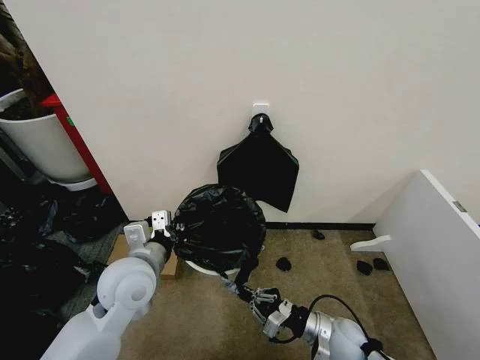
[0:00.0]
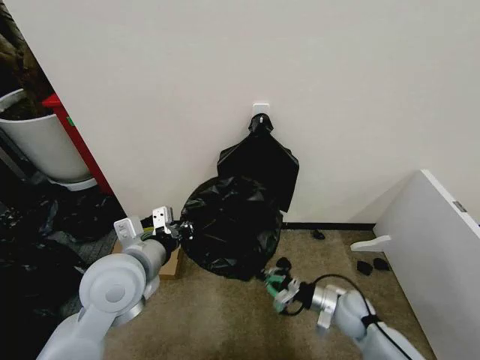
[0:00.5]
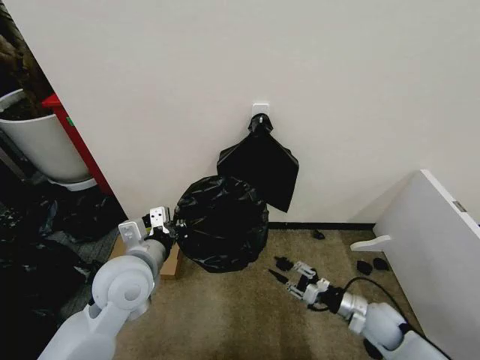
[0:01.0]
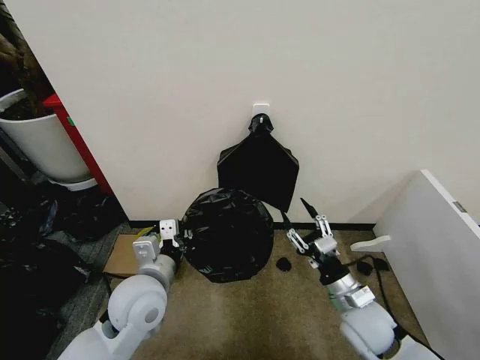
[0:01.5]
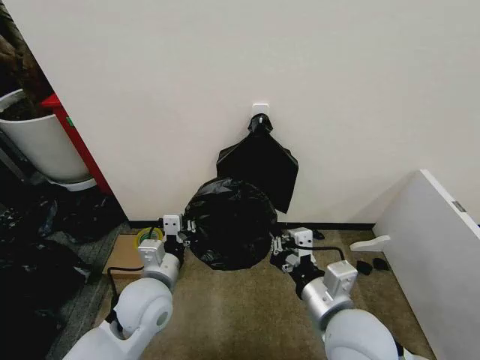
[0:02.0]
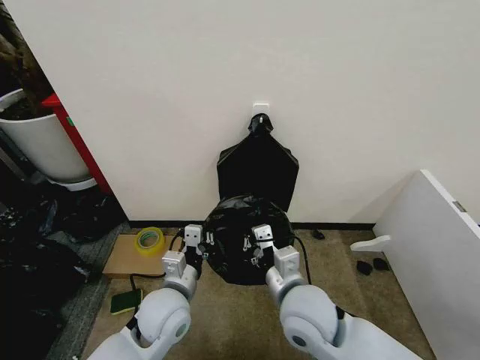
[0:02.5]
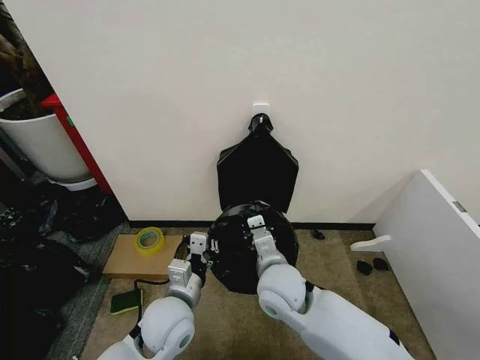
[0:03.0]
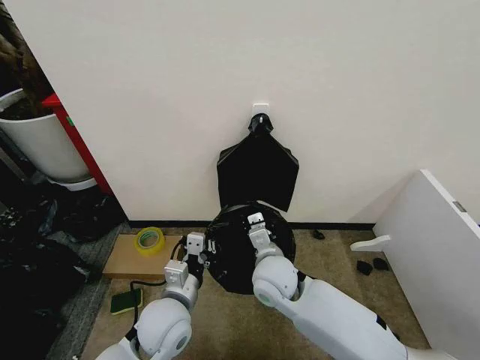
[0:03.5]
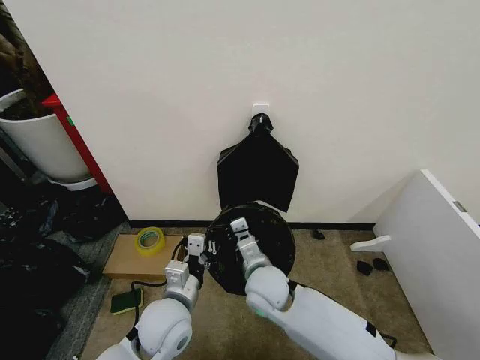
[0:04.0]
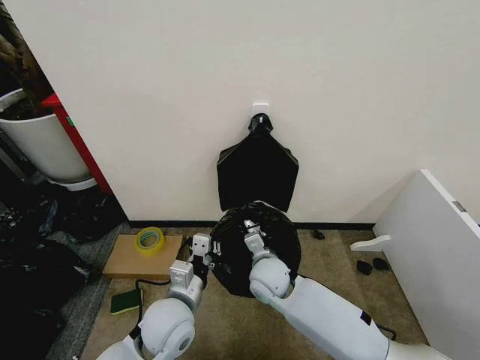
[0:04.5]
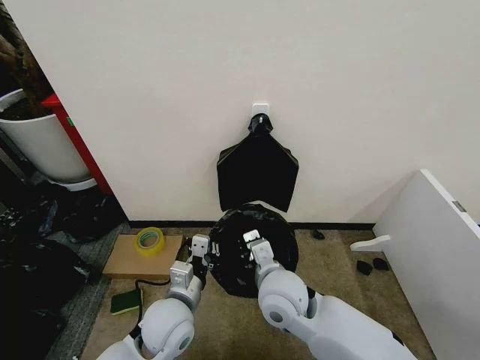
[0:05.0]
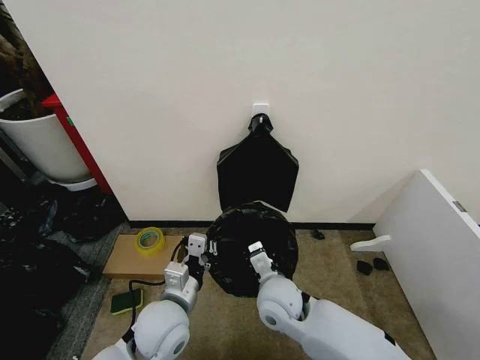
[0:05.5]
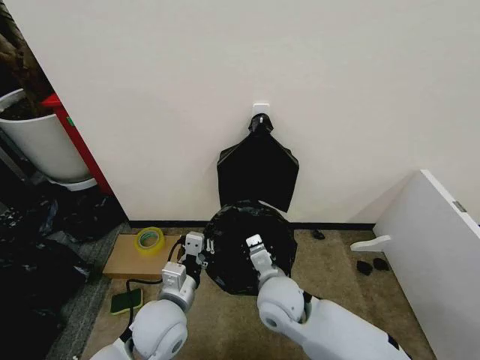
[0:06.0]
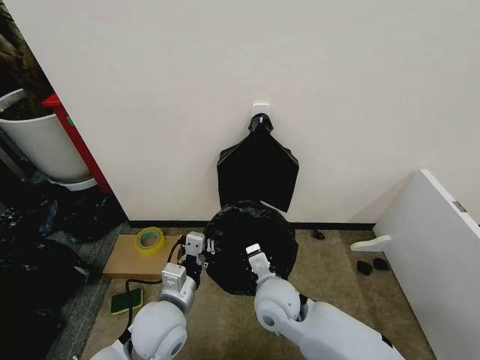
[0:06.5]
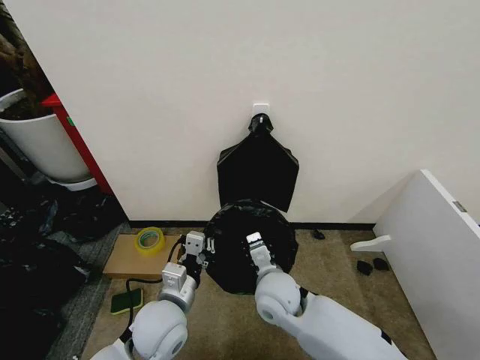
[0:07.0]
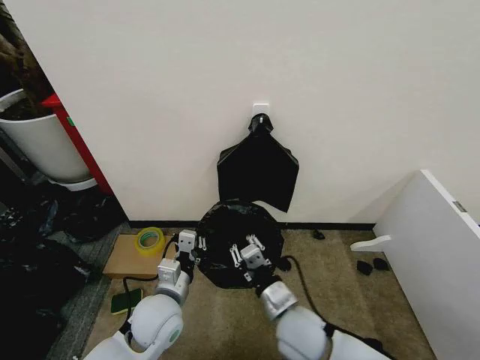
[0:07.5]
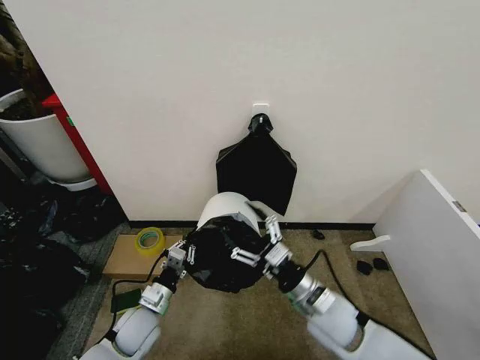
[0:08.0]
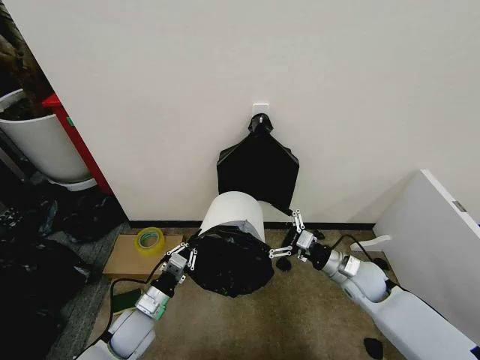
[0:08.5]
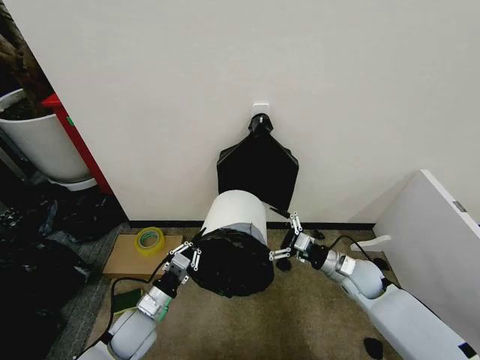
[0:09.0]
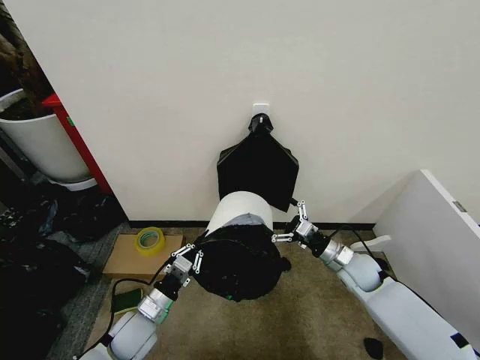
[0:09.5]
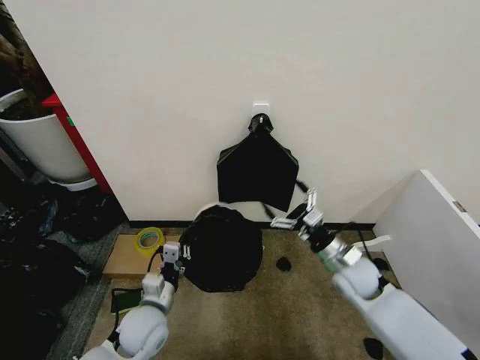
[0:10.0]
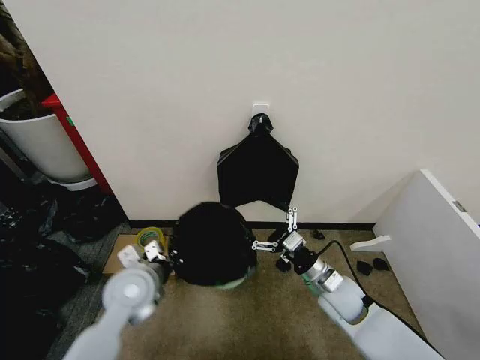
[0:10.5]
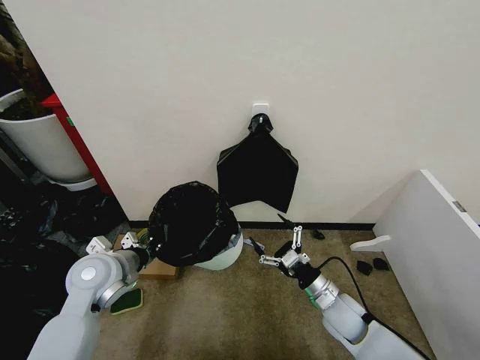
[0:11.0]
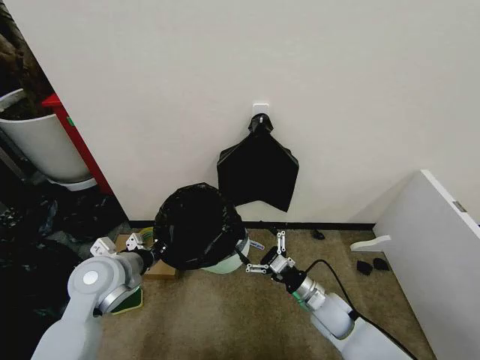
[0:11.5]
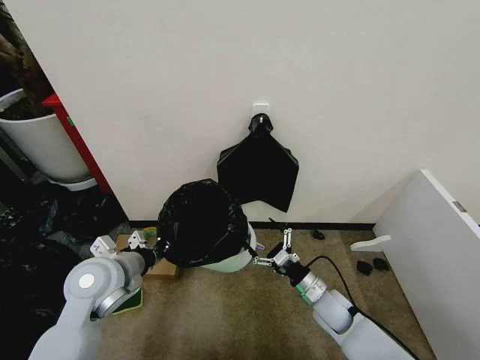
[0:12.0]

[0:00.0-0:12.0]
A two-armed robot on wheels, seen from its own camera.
Task of the whole recording: Place the garbage bag over the trash bin.
0:00.0 to 0:02.0: The right gripper heads upward, covering approximately 25 cm, and opens and closes again, while the left gripper shifts by some 5 cm.
0:02.0 to 0:04.0: The right gripper goes roughly 20 cm forward, to the left and downward. Meanwhile the left gripper ends up about 5 cm from where it was.
0:04.0 to 0:06.0: The right gripper travels upward and back again, approximately 5 cm each way.
0:06.0 to 0:08.0: The right gripper travels to the right by some 10 cm, and opens up. Meanwhile the left gripper is displaced downward and to the left by about 15 cm.
0:08.0 to 0:10.0: The left gripper heads upward, covering approximately 5 cm. The right gripper travels forward and to the right by roughly 10 cm.
0:10.0 to 0:12.0: The left gripper shifts some 15 cm upward and to the left, while the right gripper shifts approximately 10 cm downward.

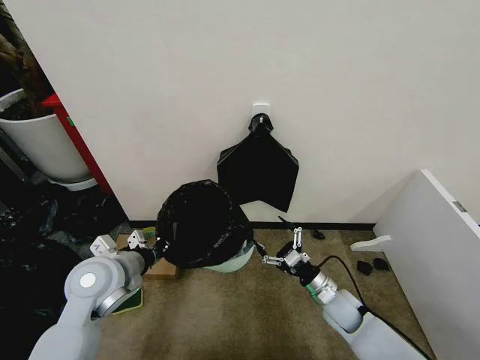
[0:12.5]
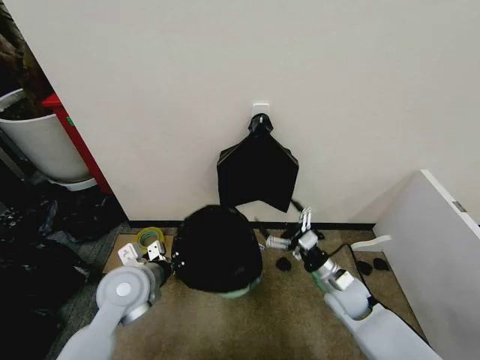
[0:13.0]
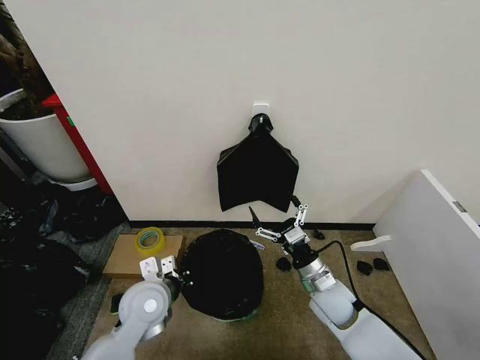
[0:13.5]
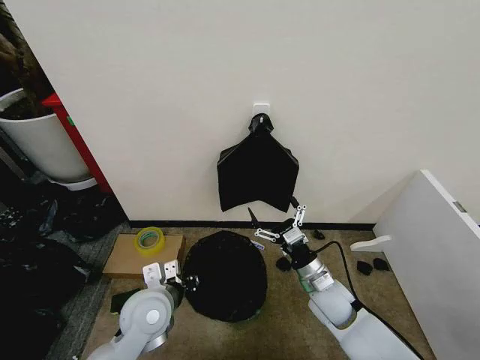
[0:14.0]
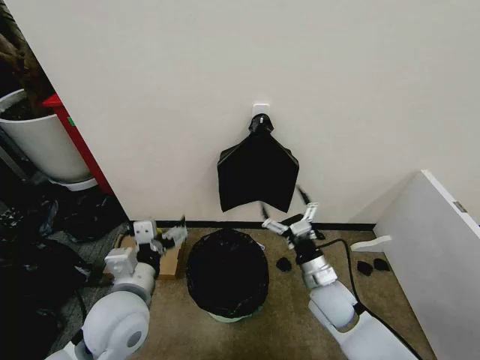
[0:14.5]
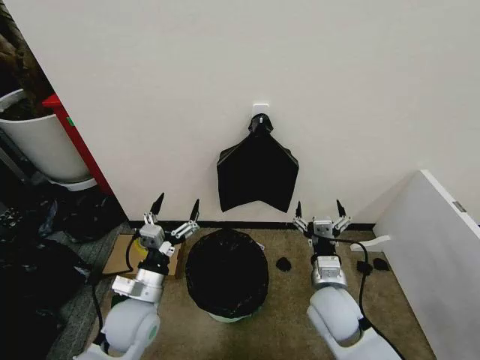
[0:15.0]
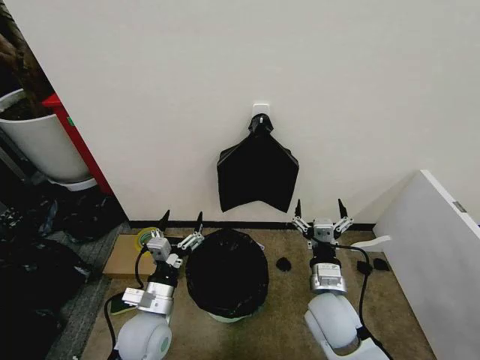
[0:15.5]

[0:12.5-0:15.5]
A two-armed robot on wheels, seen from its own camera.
Task of the whole recording: Place the garbage bag over the trash bin.
0:12.5 to 0:14.0: The left gripper moves to the right and downward, roughly 10 cm, and opens. The right gripper moves upward and to the left, roughly 10 cm.
0:14.0 to 0:15.5: The left gripper moves downward, some 5 cm, and opens. Meanwhile the right gripper is displaced backward and upward by roughly 5 cm.

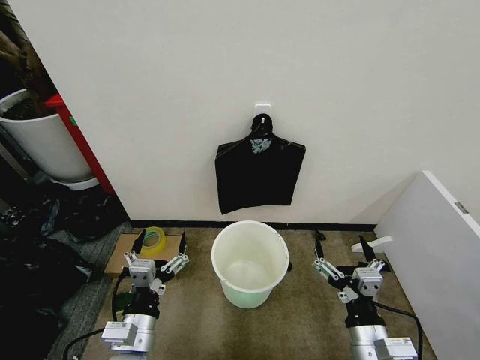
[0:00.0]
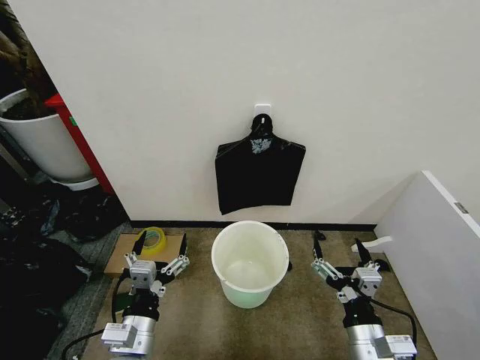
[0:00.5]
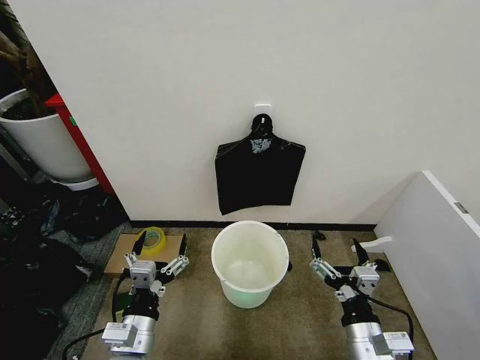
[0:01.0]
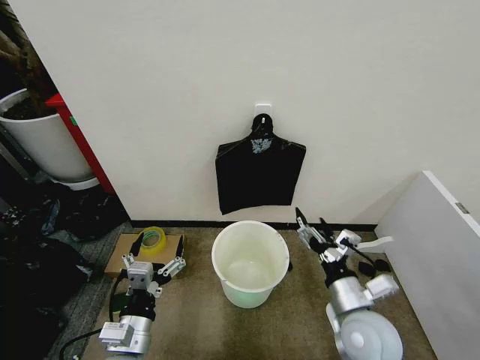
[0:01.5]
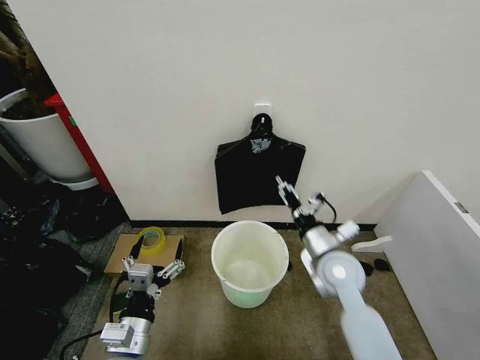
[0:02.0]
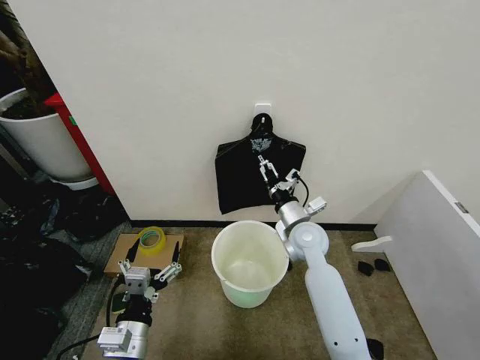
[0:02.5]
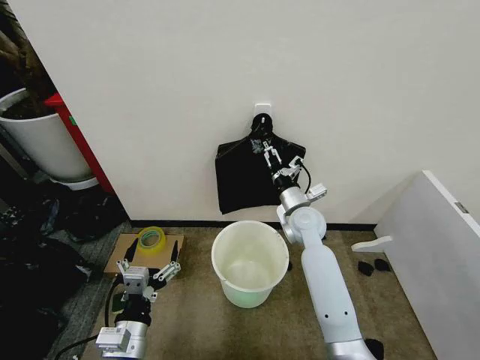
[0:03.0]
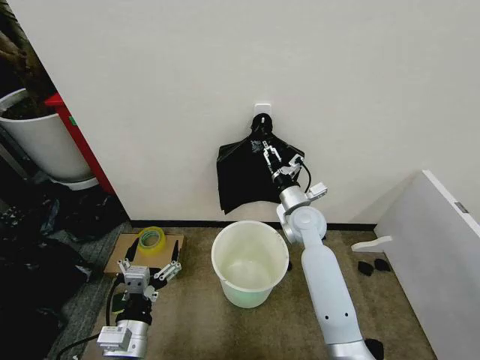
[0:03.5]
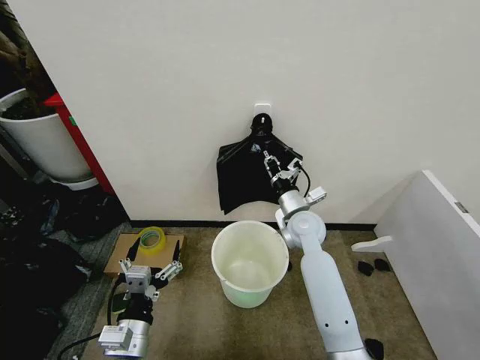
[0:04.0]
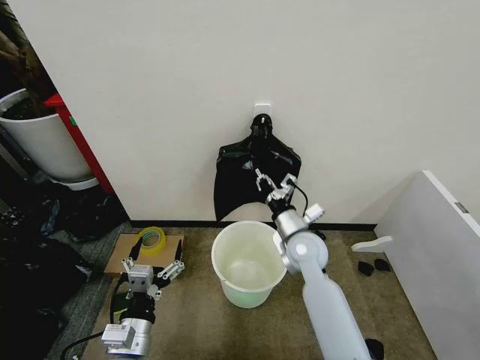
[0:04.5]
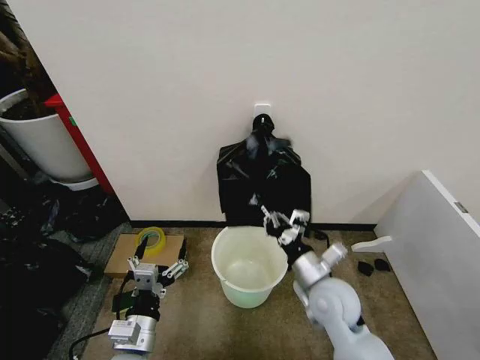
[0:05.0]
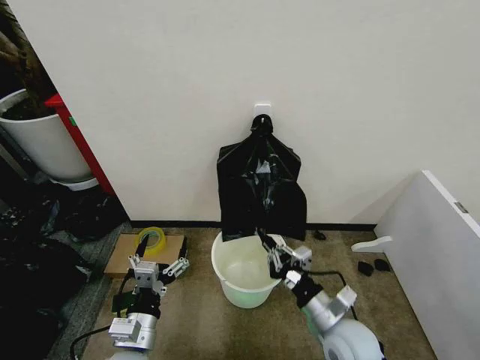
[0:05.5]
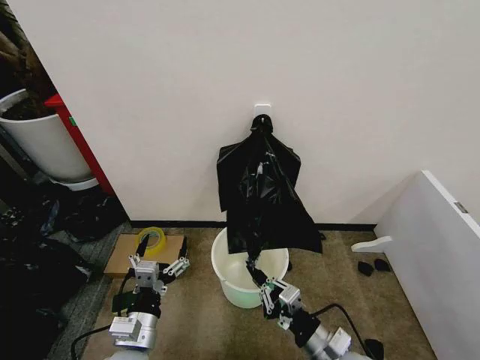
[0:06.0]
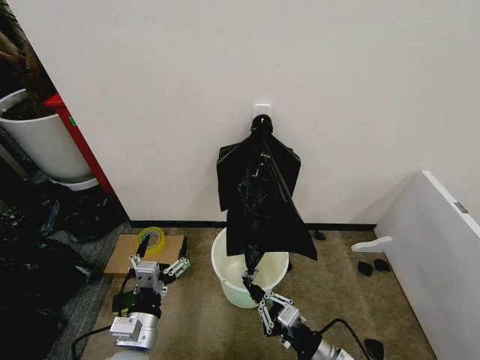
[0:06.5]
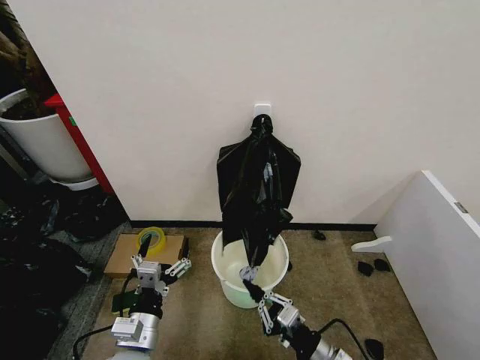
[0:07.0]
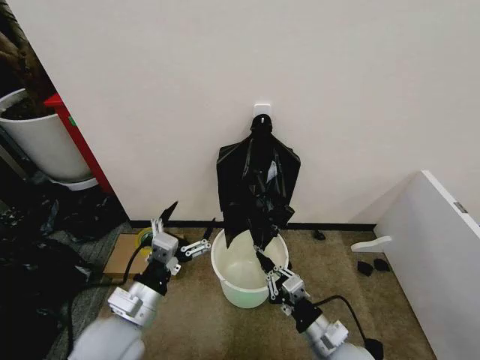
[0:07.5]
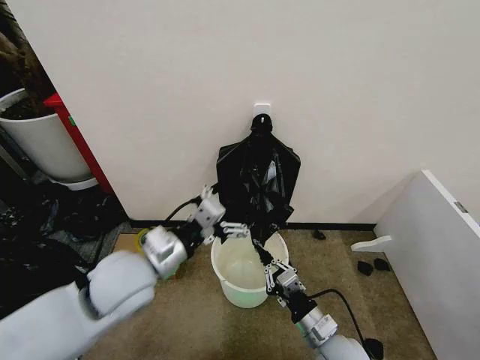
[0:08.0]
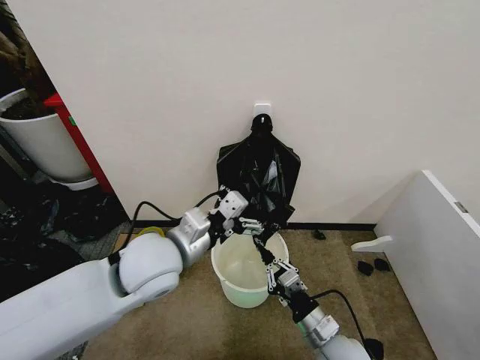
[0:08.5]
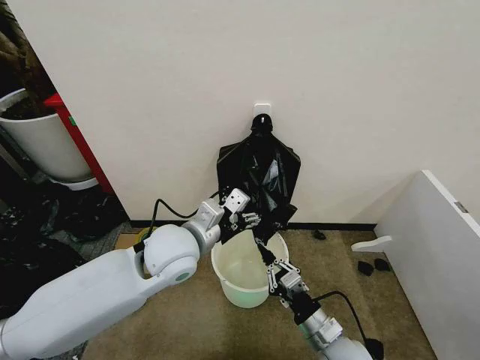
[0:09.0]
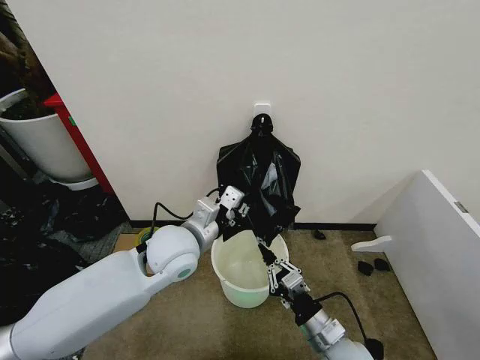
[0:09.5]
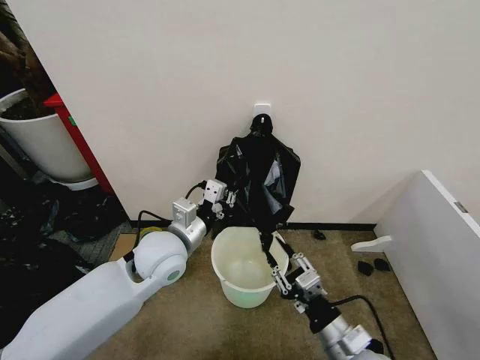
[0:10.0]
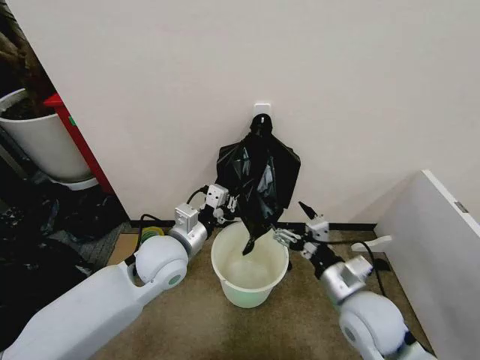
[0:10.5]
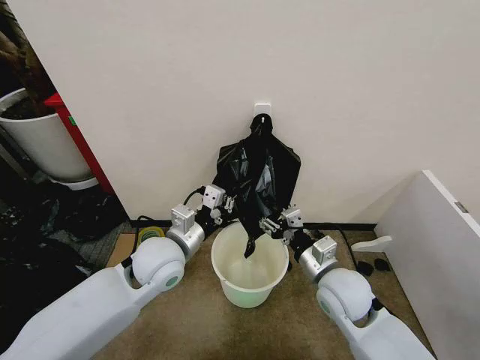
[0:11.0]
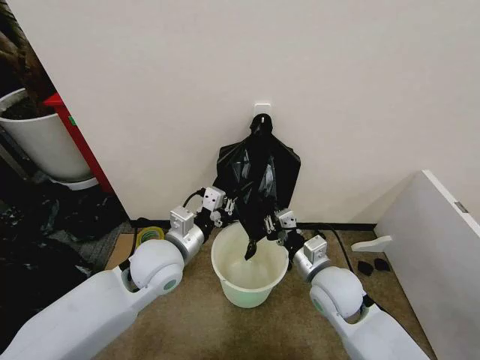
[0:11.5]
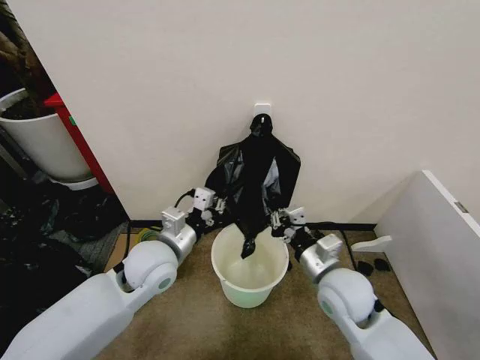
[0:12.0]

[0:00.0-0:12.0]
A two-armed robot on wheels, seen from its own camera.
Task of the whole recording: Place the garbage bag over the trash bin.
0:02.0 to 0:04.0: The right gripper heads forward, covering about 10 cm, and closes.
0:04.0 to 0:06.0: The right gripper moves backward, about 30 cm.
0:06.0 to 0:08.0: The left gripper goes about 20 cm upward and forward.
0:08.0 to 0:10.0: The right gripper heads upward, covering approximately 5 cm, while the left gripper travels forward by approximately 5 cm, and closes.
0:10.0 to 0:12.0: The right gripper travels forward and upward by roughly 15 cm, and opens and closes again.
